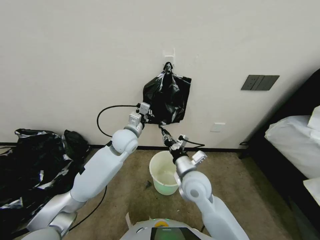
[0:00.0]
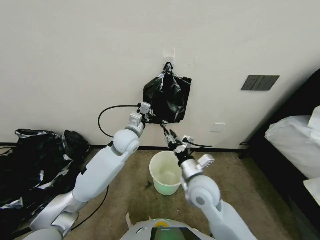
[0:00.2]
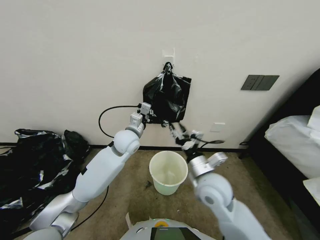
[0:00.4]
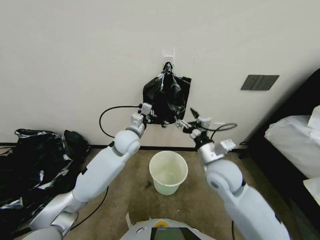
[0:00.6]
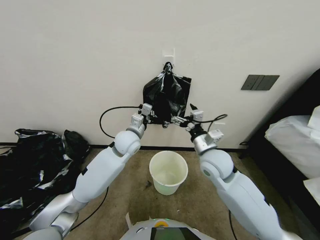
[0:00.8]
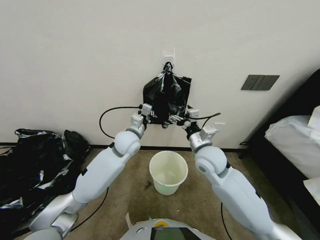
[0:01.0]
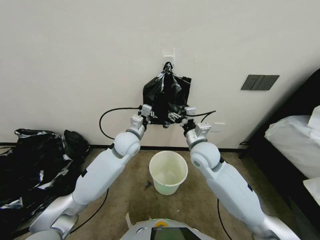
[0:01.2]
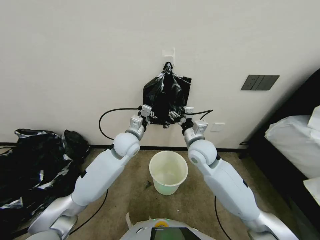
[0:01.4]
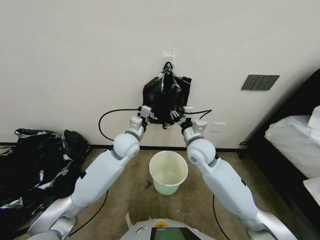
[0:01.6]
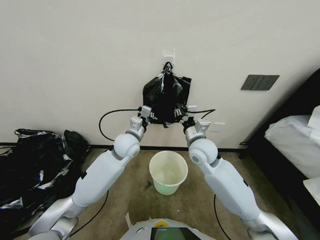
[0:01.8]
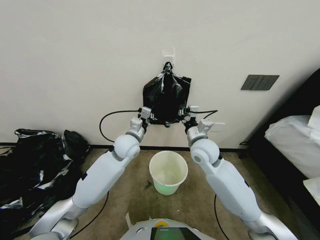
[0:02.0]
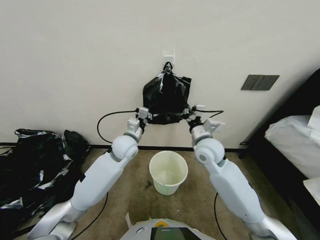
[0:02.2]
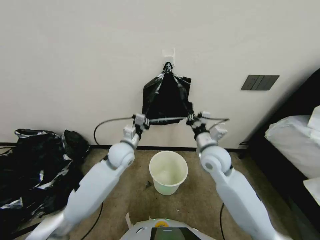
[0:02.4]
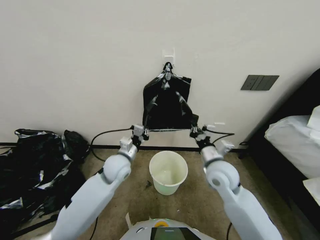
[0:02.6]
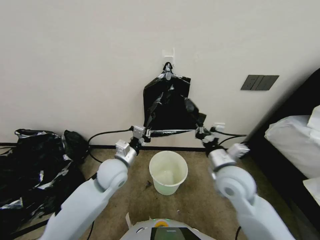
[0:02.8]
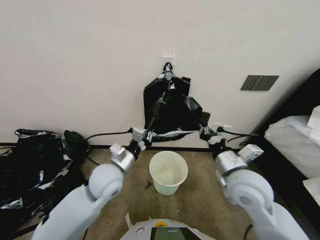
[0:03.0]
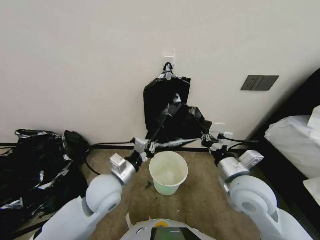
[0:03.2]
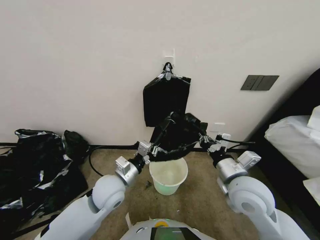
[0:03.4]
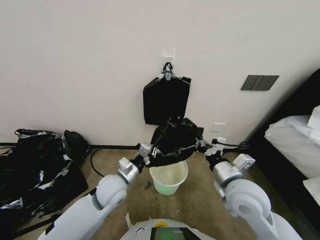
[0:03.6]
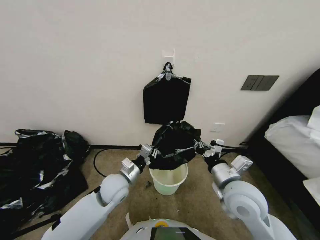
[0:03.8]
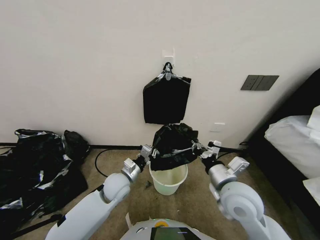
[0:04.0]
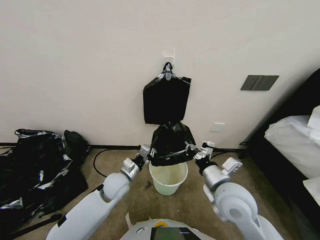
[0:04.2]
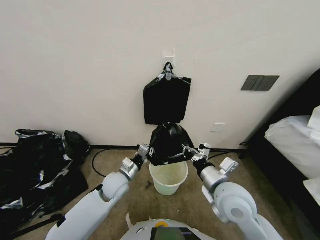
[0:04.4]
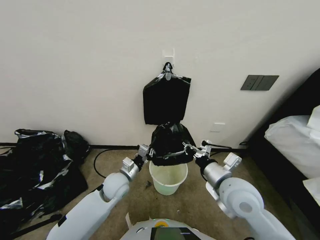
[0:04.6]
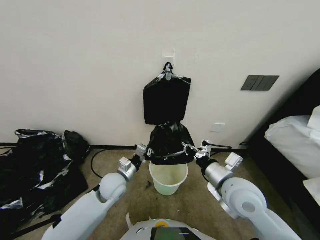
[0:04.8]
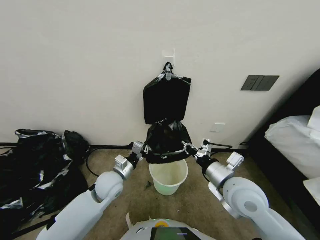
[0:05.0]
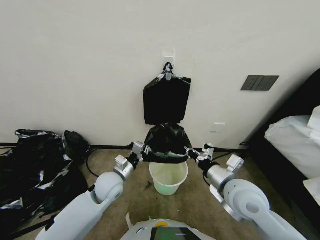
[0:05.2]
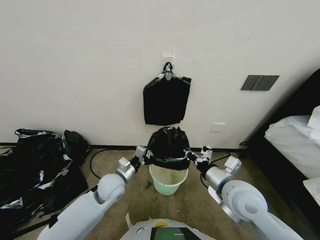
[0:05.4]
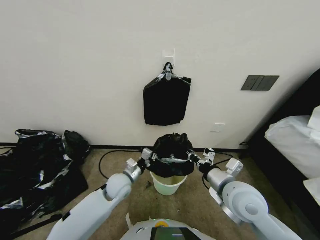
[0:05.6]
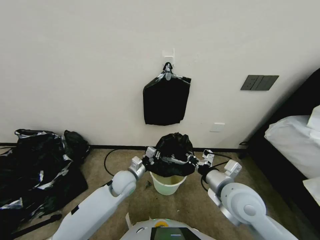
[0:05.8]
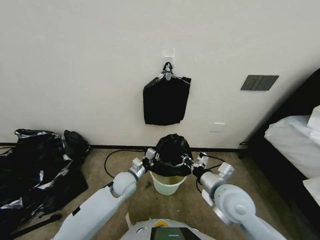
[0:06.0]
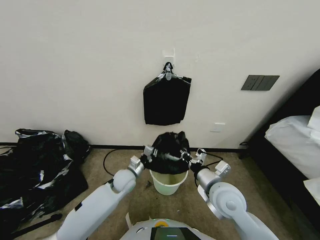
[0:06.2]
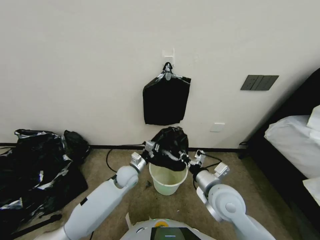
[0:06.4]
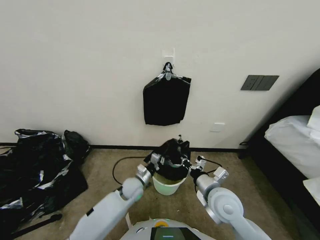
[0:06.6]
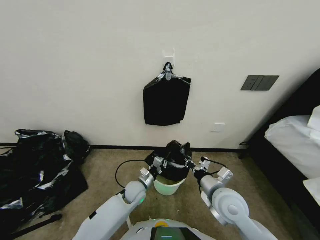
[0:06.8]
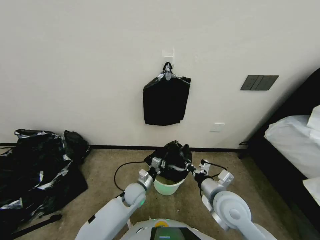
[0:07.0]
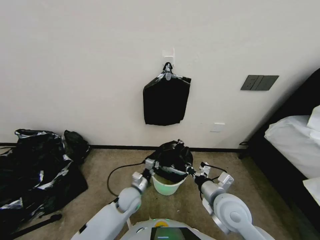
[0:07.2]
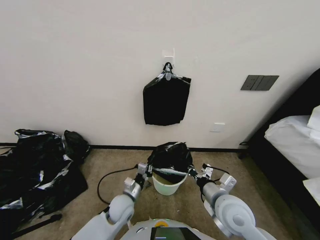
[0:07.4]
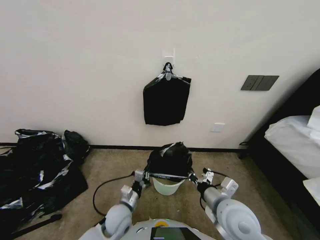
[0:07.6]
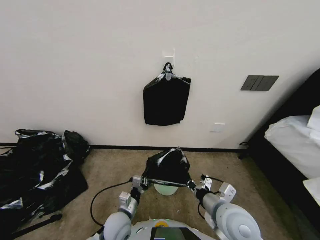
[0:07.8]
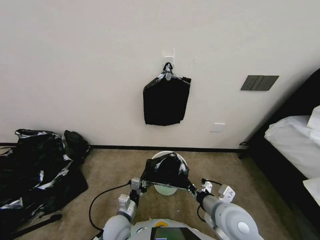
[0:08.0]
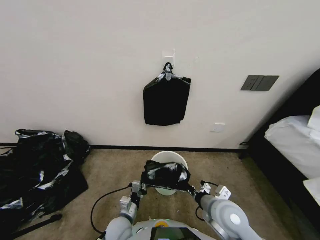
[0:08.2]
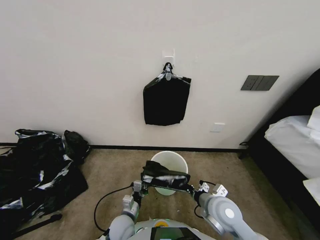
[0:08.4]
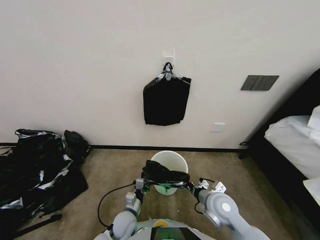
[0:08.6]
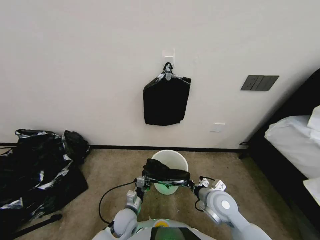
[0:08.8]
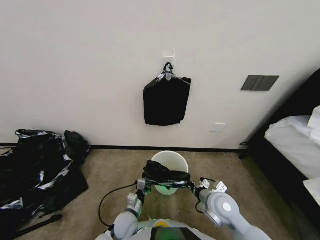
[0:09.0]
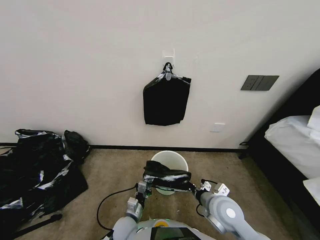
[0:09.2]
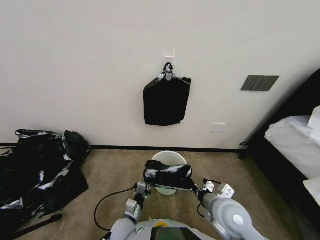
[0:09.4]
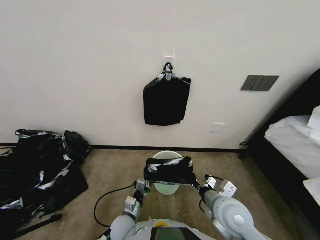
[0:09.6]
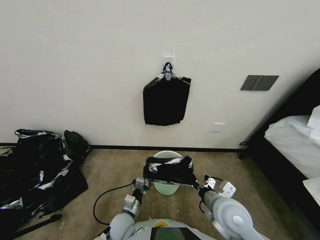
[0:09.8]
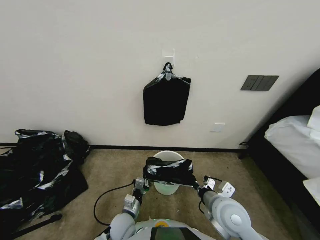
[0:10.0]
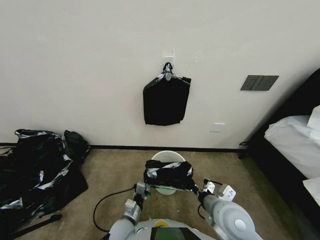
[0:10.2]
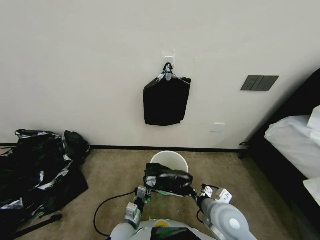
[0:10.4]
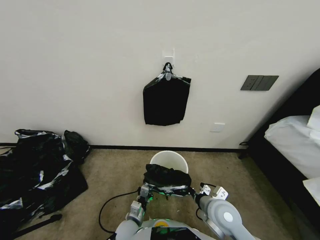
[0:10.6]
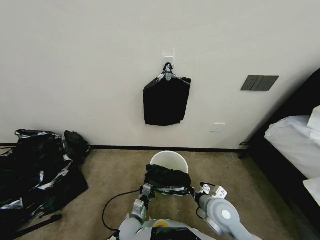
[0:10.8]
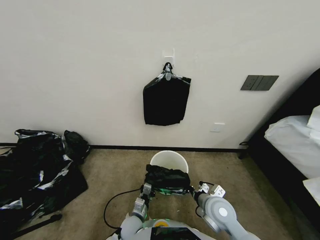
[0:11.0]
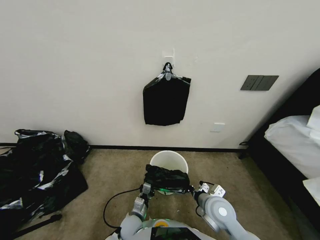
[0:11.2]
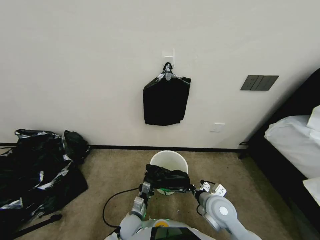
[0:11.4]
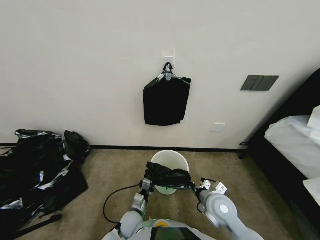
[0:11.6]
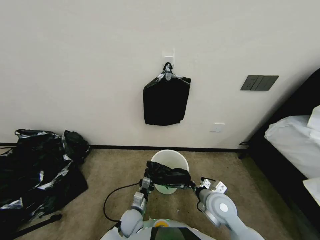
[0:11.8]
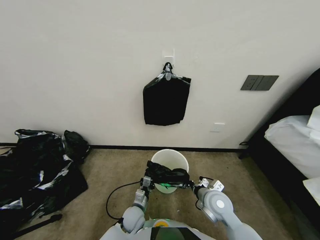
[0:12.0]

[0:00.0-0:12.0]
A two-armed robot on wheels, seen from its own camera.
Task of the whole recording: Place a trash bag onto the trash bin.
0.0 to 1.6 s: The right gripper shifts some 10 cm forward and upward, and opens its fingers.
1.6 to 3.0 s: The right gripper moves backward and to the right, roughly 15 cm, and closes its fingers. The left gripper moves backward, about 10 cm.
3.0 to 4.4 s: The left gripper goes some 10 cm downward. The right gripper changes place by roughly 5 cm.
6.0 to 7.6 s: The left gripper goes roughly 10 cm backward and downward.
7.6 to 9.0 s: The grippers both shift downward by some 5 cm.
9.0 to 10.4 s: The right gripper moves approximately 5 cm.
10.4 to 12.0 s: The left gripper shifts roughly 5 cm forward. The right gripper is displaced downward and forward by approximately 10 cm.

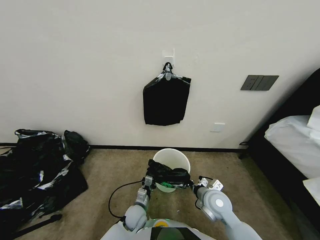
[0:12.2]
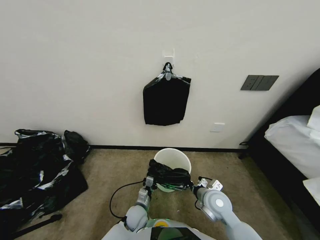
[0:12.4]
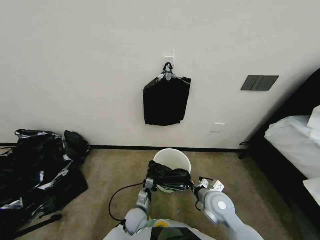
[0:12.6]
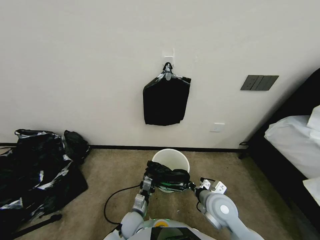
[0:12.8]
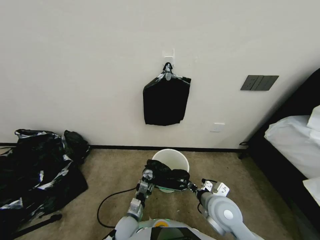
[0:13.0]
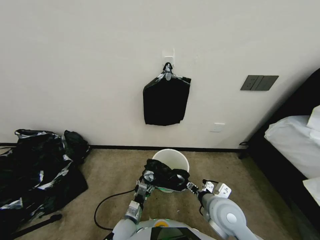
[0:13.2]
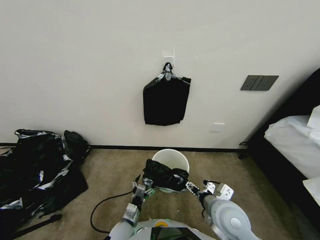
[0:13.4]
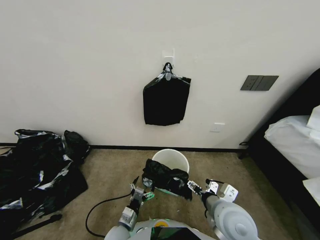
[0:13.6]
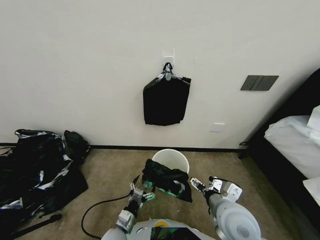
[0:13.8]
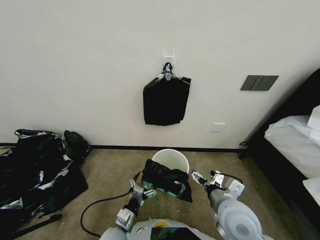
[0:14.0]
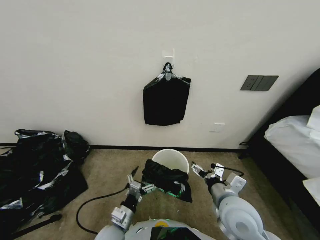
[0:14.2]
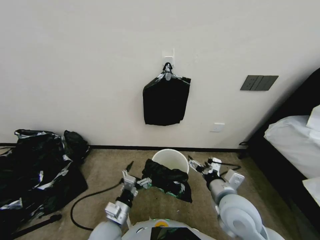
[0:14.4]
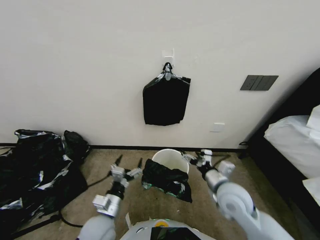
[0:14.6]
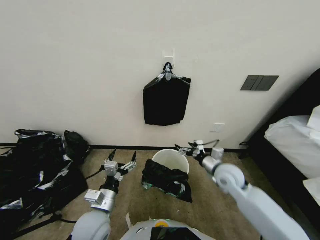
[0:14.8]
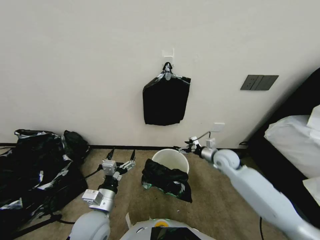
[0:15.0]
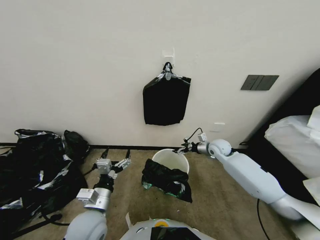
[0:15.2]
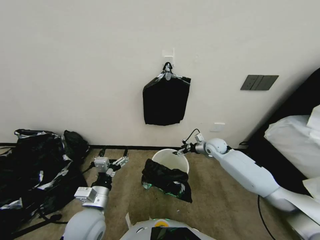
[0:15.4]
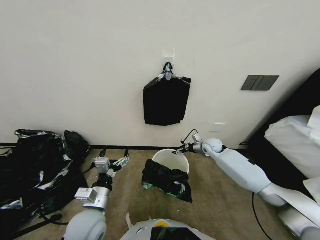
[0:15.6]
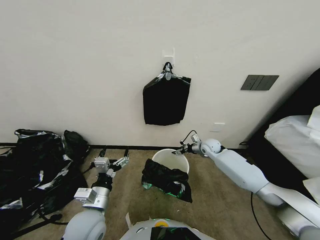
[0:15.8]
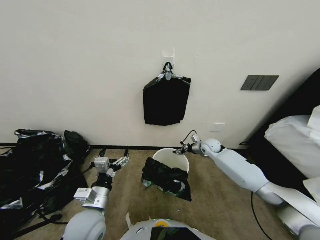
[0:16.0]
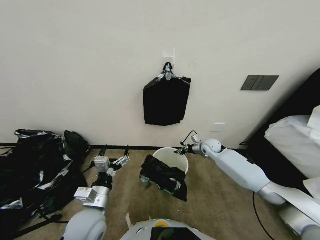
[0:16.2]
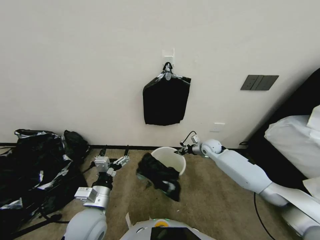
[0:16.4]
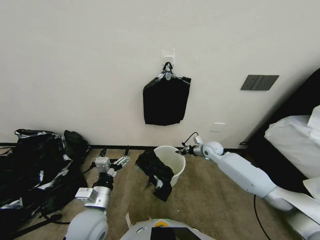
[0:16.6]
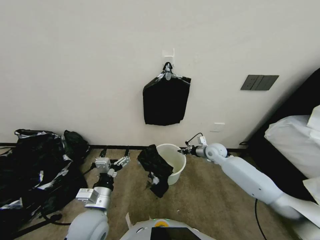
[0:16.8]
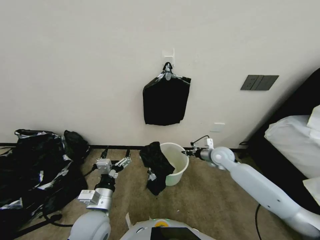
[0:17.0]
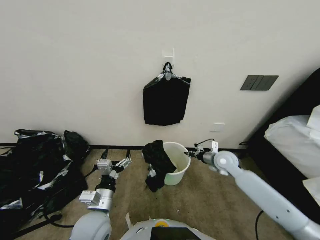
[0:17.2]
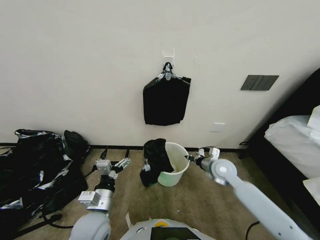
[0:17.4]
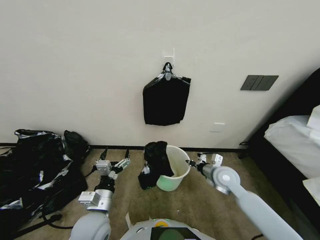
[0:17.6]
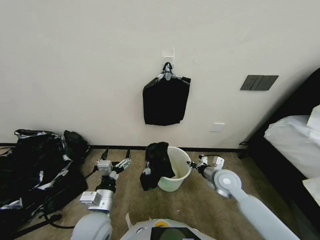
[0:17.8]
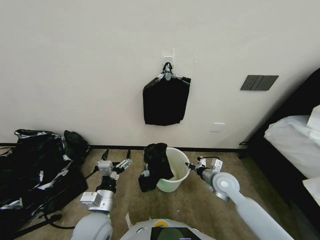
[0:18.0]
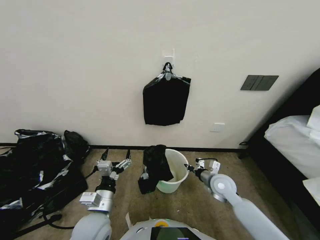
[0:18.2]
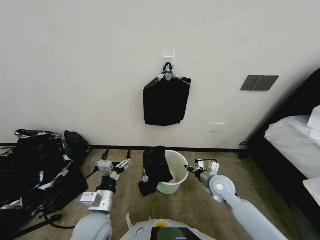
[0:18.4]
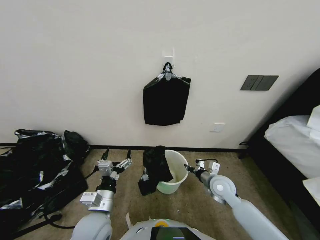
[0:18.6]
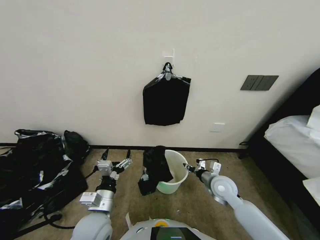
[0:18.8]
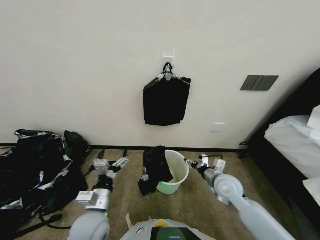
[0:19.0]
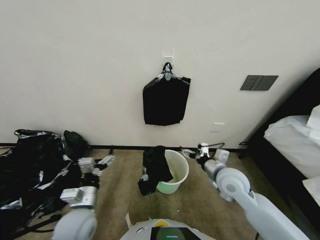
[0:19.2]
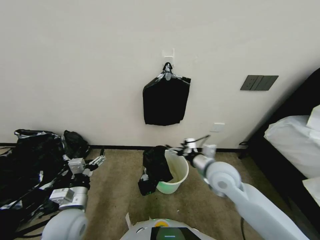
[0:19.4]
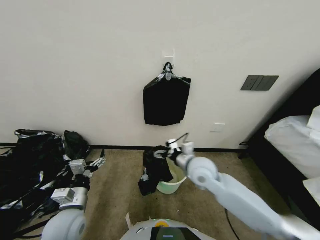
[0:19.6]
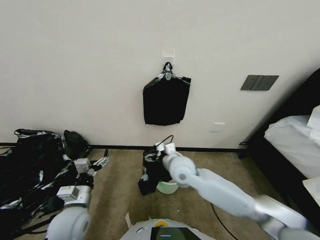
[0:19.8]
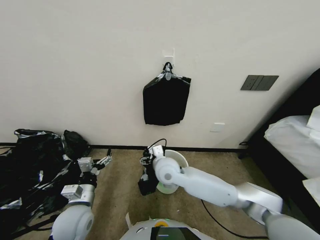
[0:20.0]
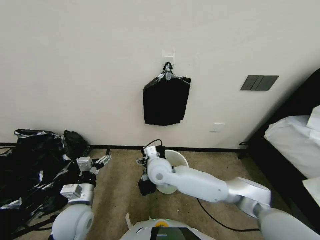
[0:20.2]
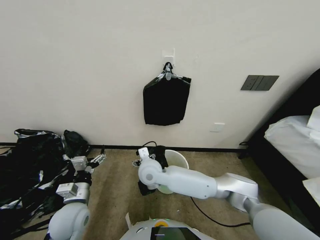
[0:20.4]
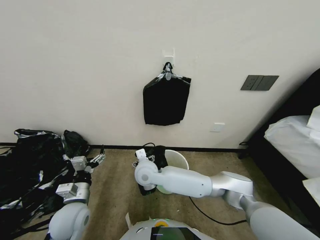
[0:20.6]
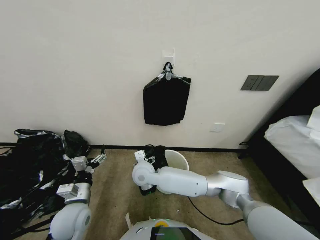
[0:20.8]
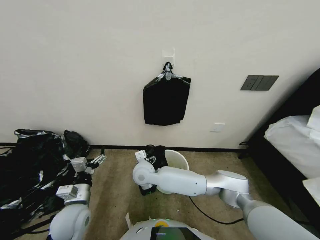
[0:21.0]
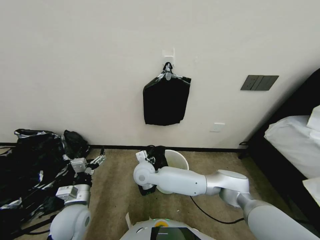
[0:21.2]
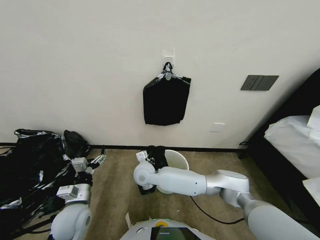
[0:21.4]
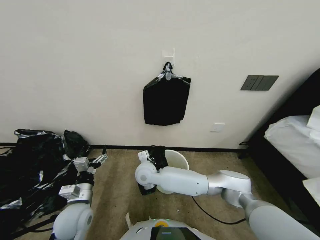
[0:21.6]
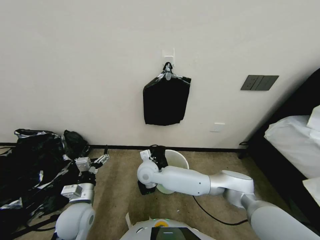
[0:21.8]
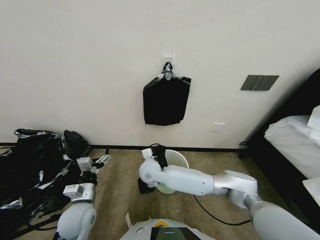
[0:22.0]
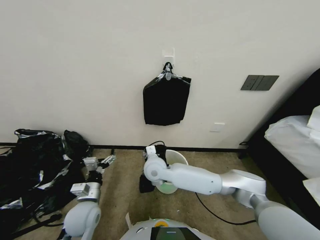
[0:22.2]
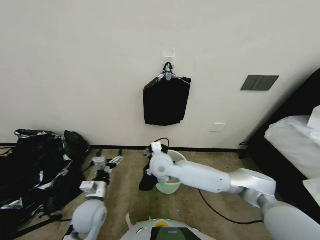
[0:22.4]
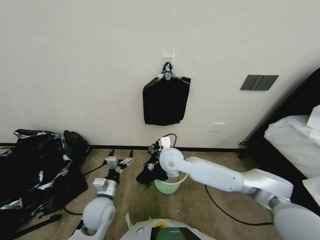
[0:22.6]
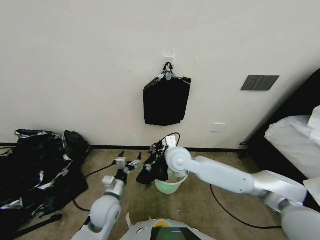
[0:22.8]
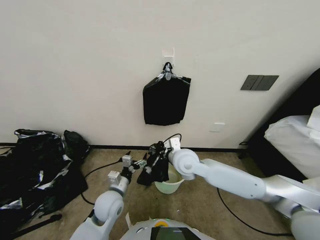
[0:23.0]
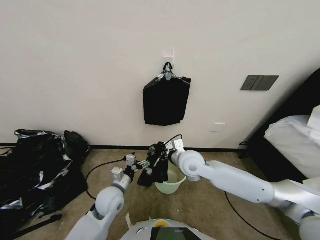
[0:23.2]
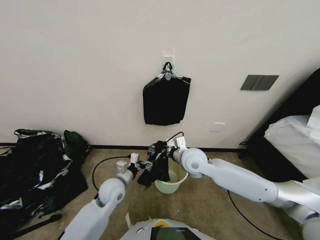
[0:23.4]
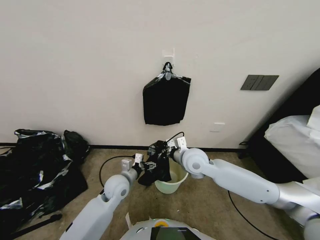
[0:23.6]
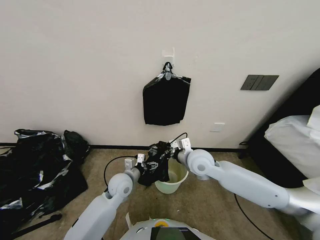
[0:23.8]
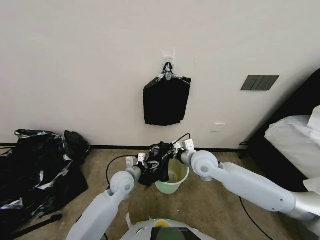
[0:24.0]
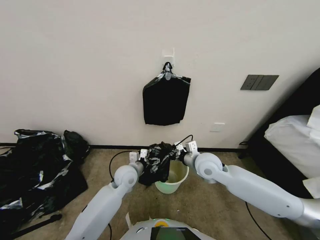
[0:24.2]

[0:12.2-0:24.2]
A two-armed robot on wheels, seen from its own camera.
Task of the whole recording: Place a trash bag onto the trash bin.
12.2 to 13.8 s: The right gripper travels upward and backward by about 10 cm, and opens its fingers. Meanwhile the left gripper heads backward and to the left, covering approximately 10 cm, and opens its fingers.
13.8 to 15.2 s: The left gripper travels upward by some 15 cm. Meanwhile the right gripper is displaced forward by approximately 25 cm.
15.2 to 16.6 s: The right gripper moves forward, some 5 cm, and closes.
16.6 to 18.2 s: The right gripper moves backward, about 20 cm.
18.2 to 19.8 s: The left gripper is displaced to the left by roughly 10 cm; the right gripper moves to the left and upward, roughly 20 cm, and opens up.
19.8 to 21.2 s: The right gripper is displaced to the left and downward by about 20 cm.
21.2 to 22.6 s: The right gripper is displaced to the right and upward by some 10 cm, and closes. The left gripper goes about 5 cm to the right.
22.6 to 24.2 s: The left gripper goes roughly 15 cm forward and to the right, while the right gripper is displaced to the right by some 15 cm.
